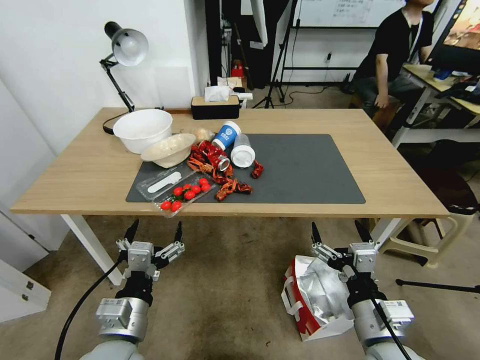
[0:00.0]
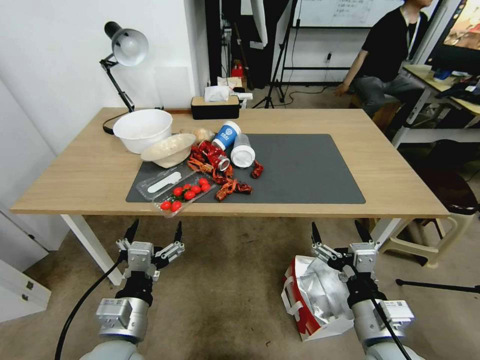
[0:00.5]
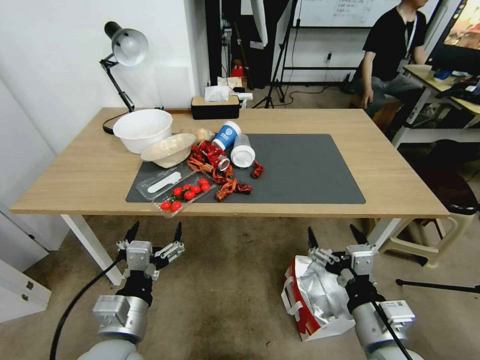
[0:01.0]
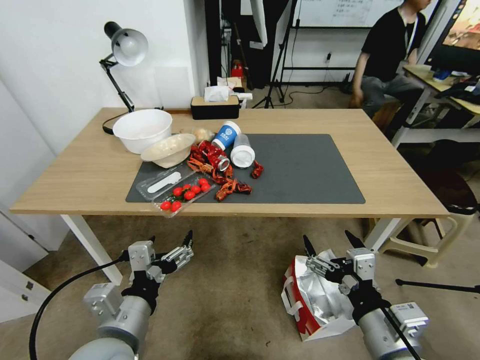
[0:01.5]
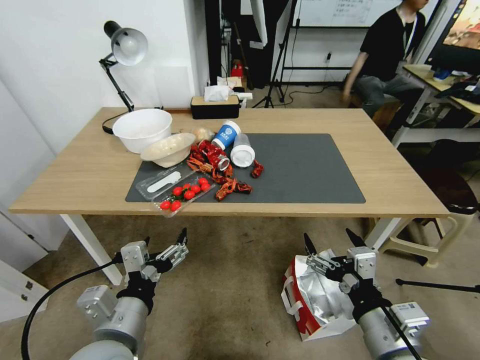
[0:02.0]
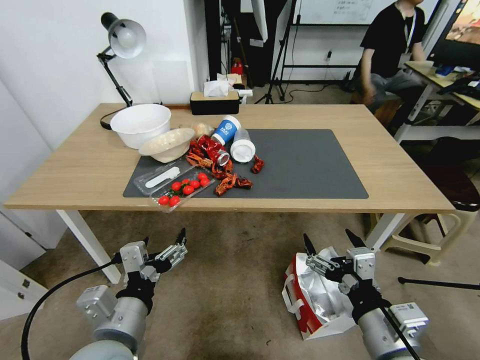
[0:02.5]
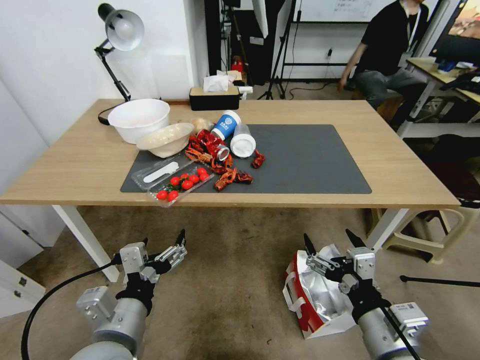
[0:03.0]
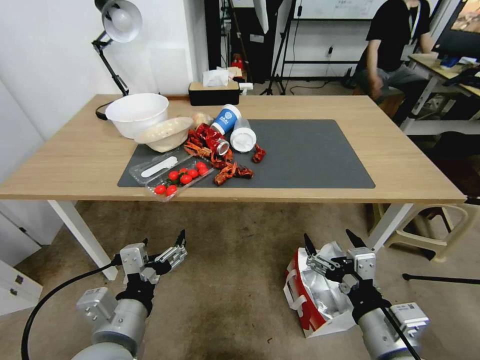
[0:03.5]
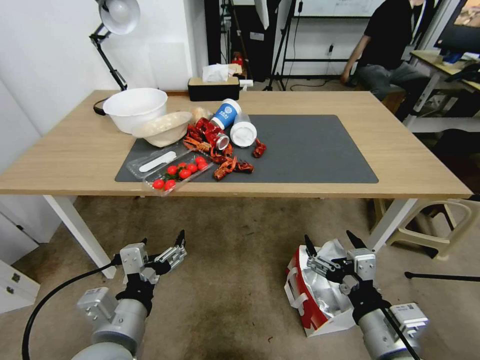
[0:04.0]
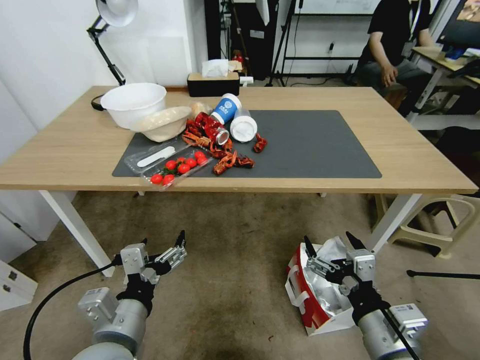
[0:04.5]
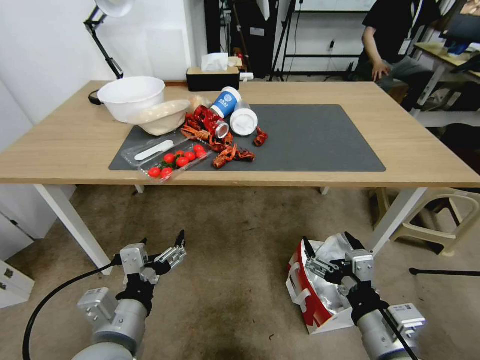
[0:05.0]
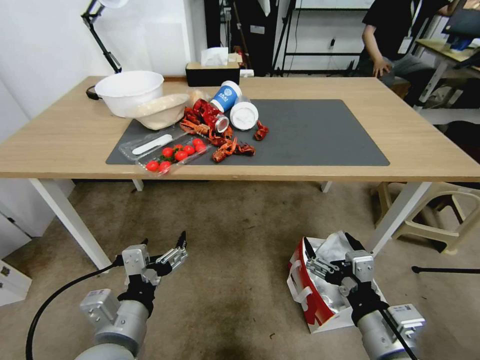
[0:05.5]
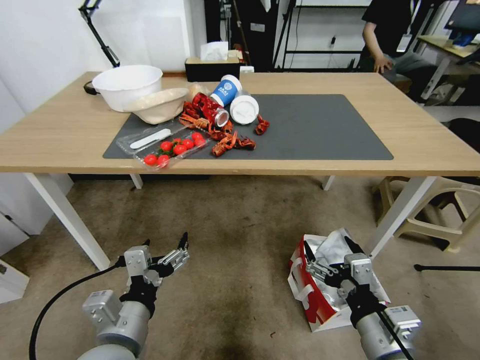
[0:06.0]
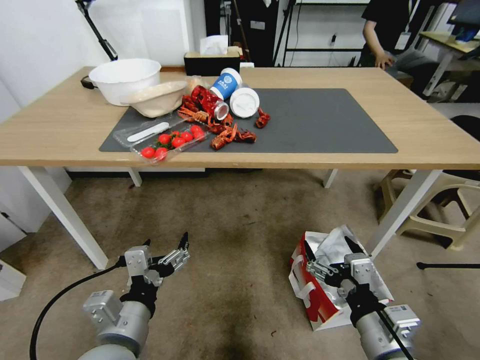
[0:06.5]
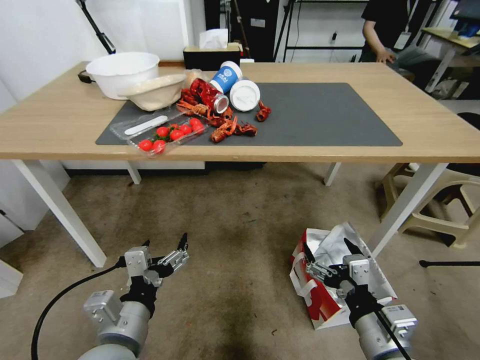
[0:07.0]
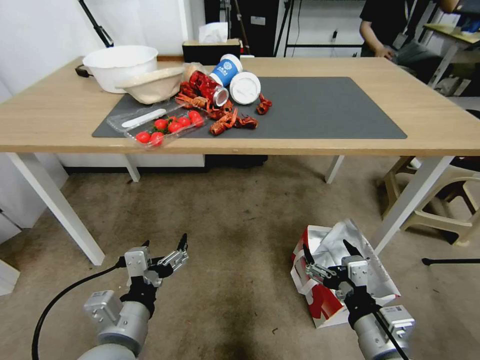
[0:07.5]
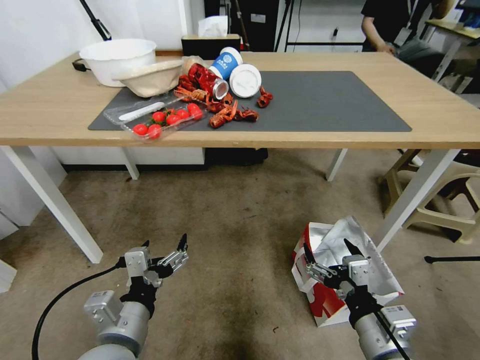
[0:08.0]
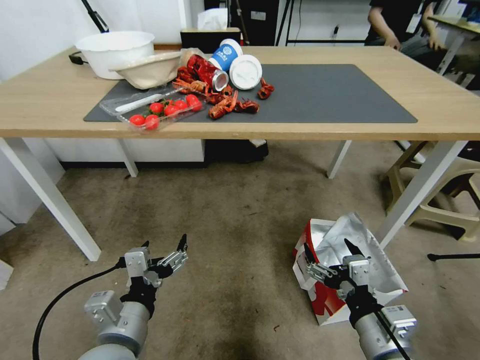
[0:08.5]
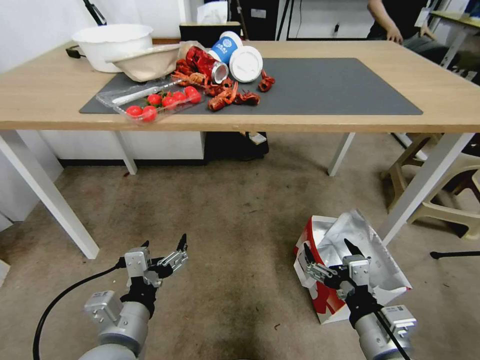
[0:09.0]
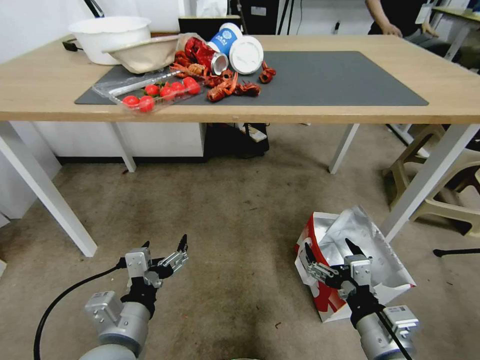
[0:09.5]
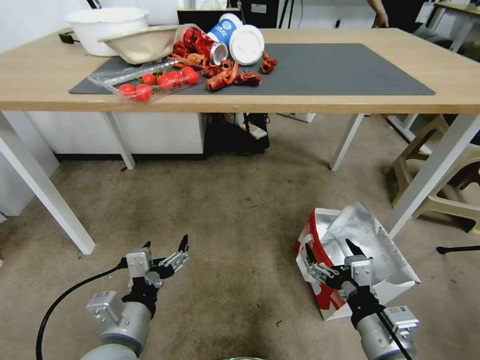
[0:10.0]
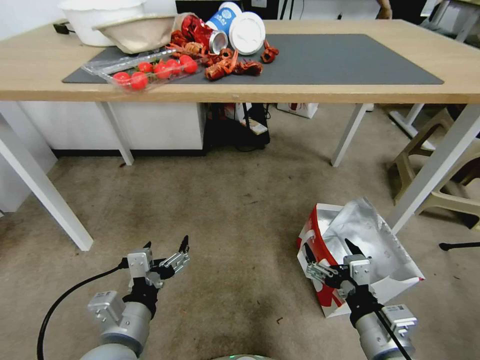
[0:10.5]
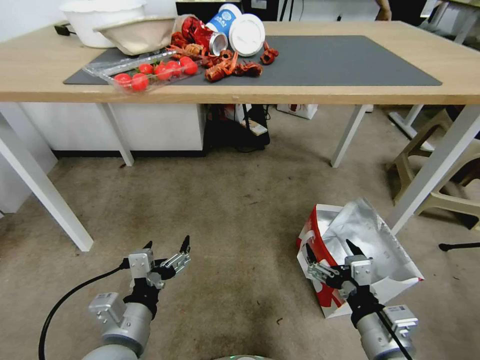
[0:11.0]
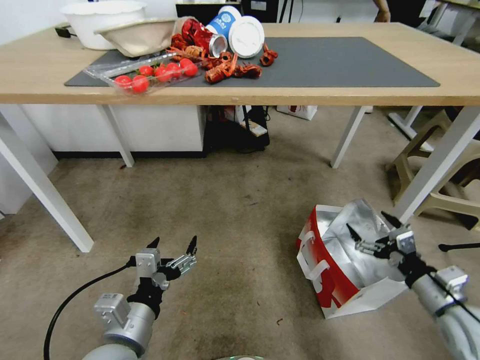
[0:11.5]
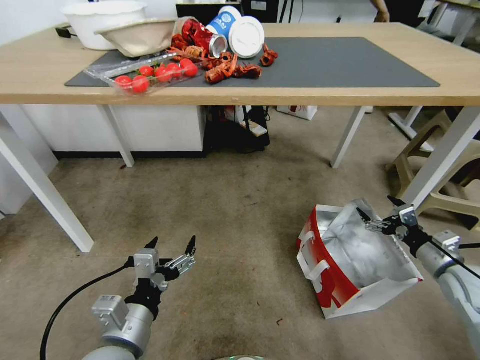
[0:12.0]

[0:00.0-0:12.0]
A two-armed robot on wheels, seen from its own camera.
Task of the whole recording: Pick up the food delivery bag from the floor and place it on the table.
0:10.0 to 0:12.0: The right gripper moves to the right and forward, about 30 cm.

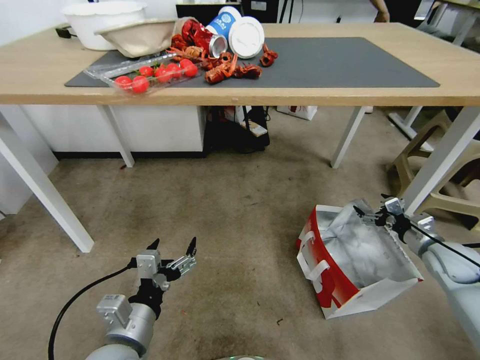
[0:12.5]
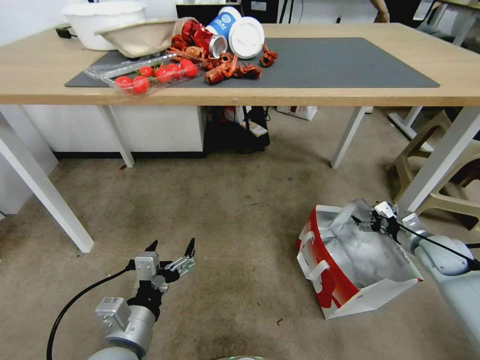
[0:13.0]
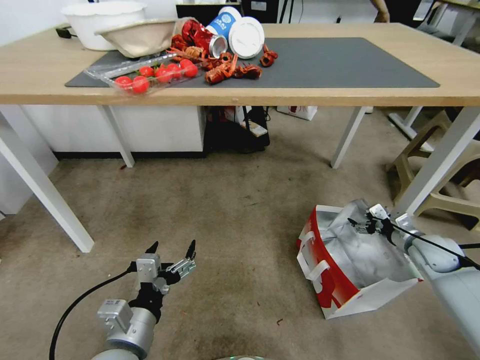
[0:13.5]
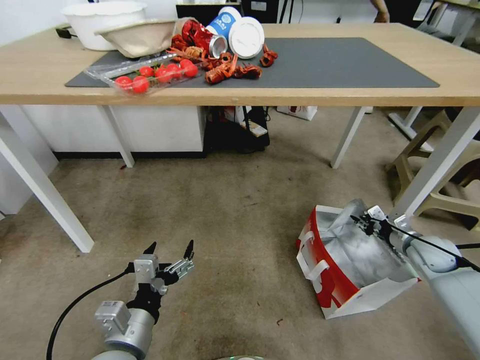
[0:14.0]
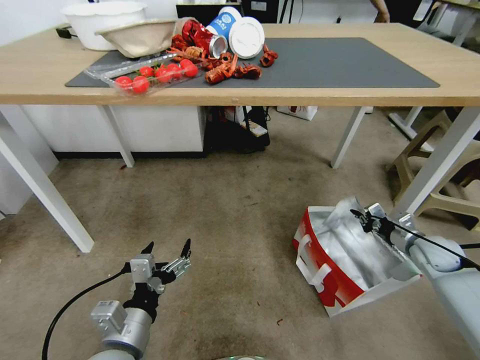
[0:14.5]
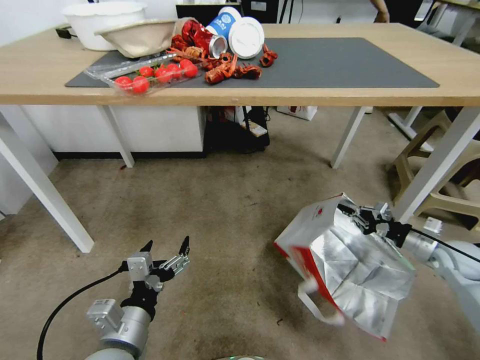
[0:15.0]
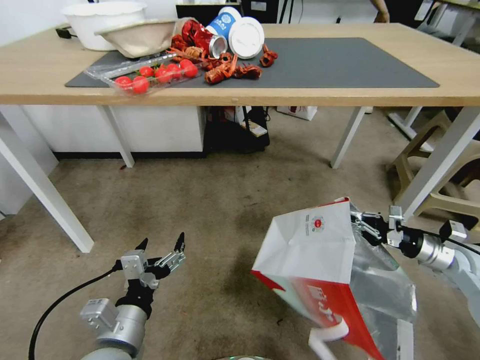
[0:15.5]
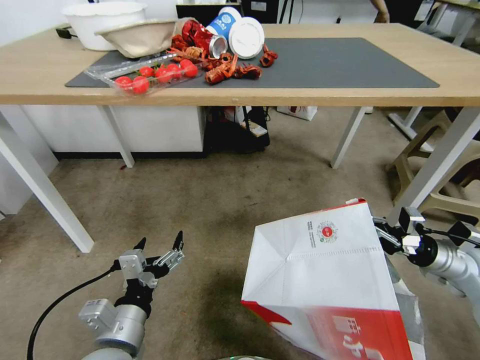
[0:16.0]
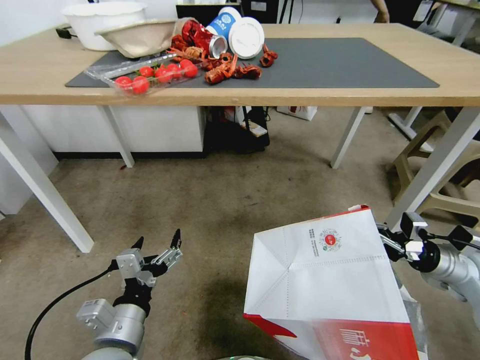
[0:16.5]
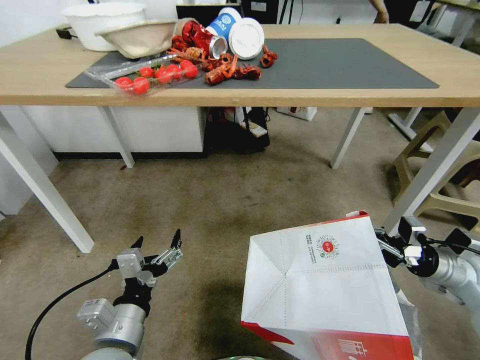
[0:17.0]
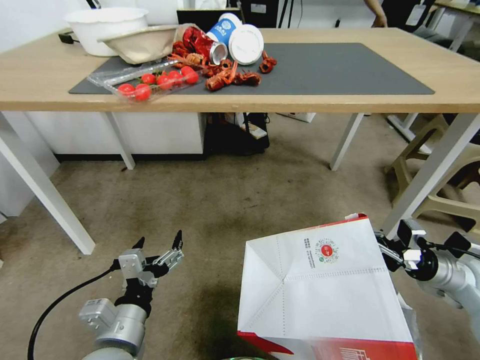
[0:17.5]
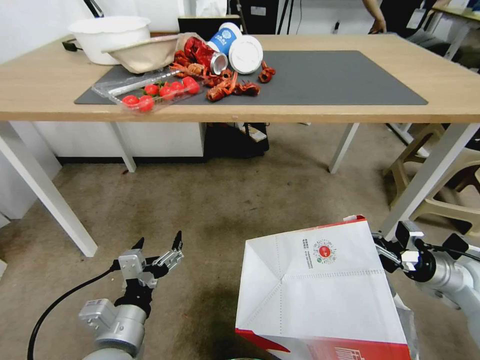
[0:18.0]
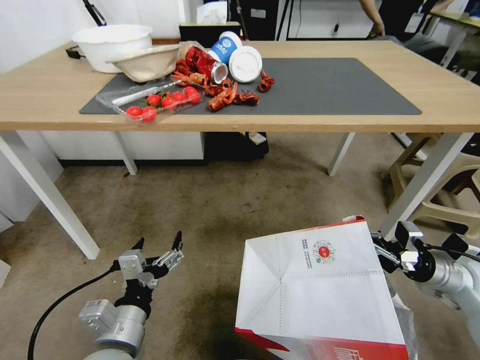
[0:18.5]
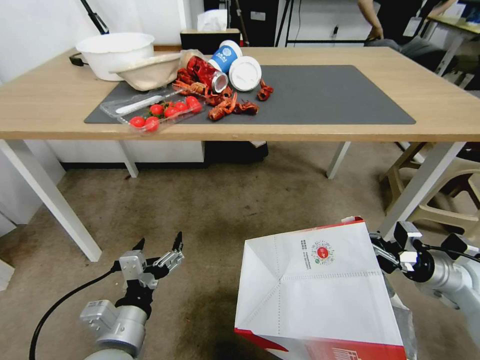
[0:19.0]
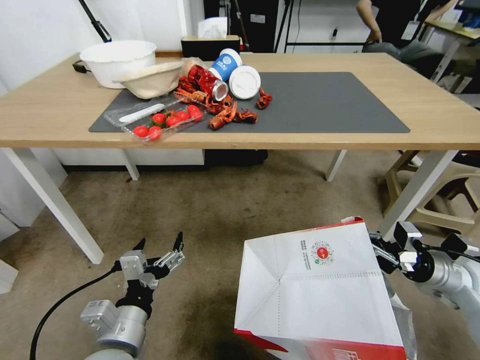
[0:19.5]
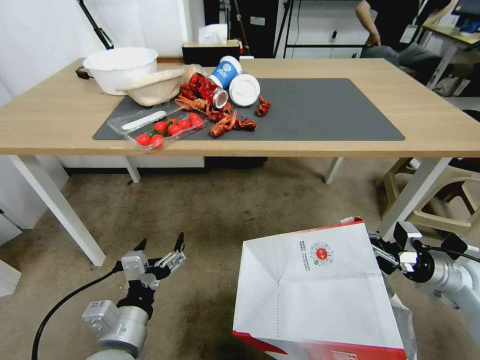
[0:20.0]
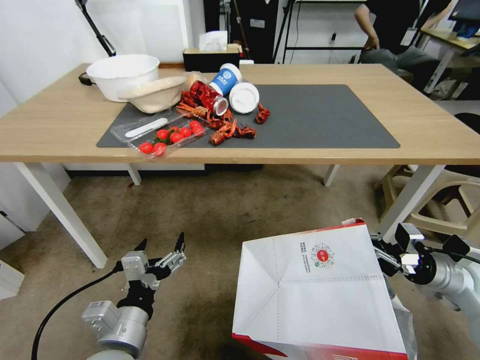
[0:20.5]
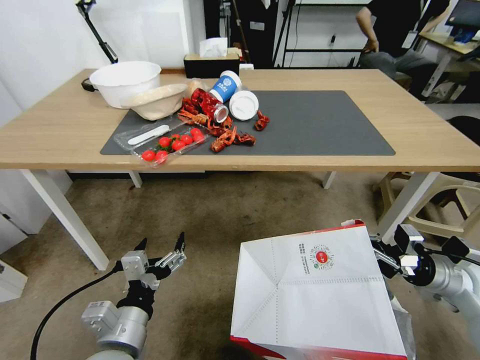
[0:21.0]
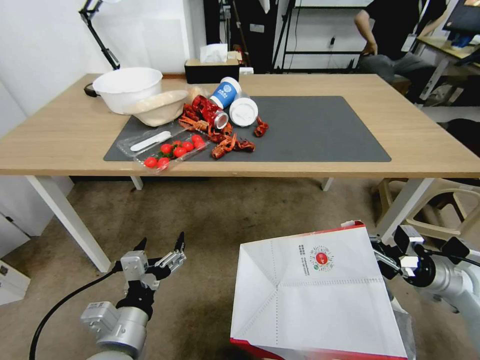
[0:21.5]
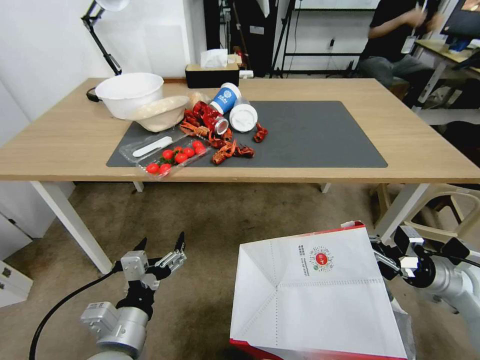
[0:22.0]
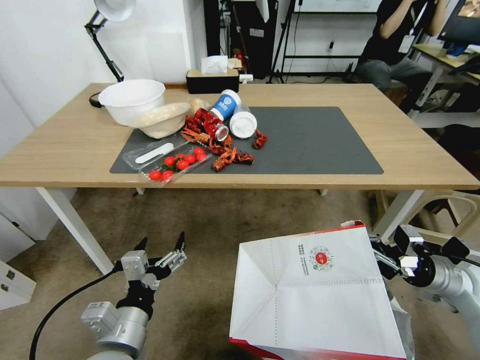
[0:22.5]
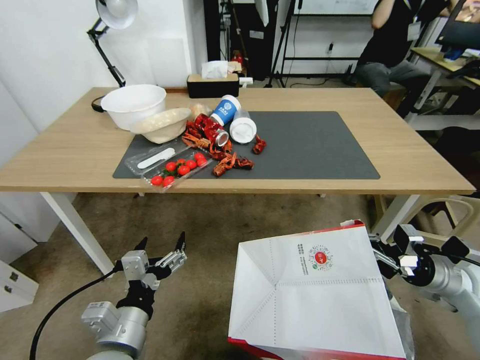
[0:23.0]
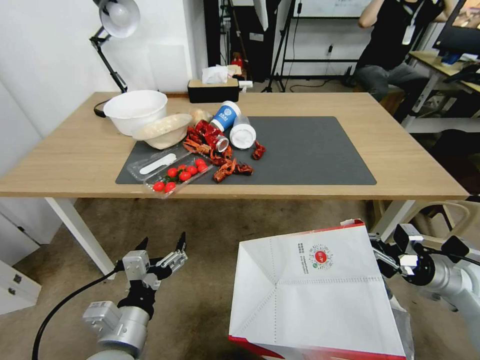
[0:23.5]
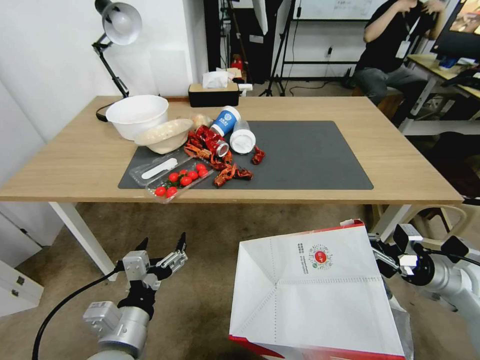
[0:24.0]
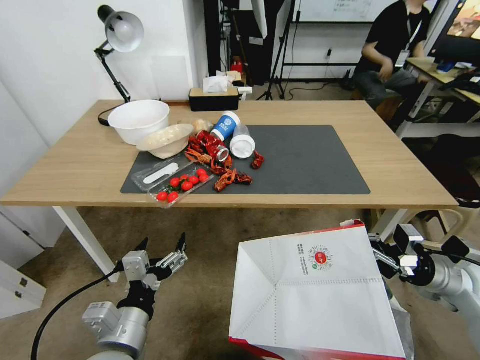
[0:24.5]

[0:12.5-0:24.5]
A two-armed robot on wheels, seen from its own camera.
Task of the whole recording: Pick up the food delivery bag from the floor and place it on the table.
0:12.5 to 0:14.5: The right gripper closes up.
0:14.5 to 0:16.5: The right gripper travels backward and upward by some 10 cm.

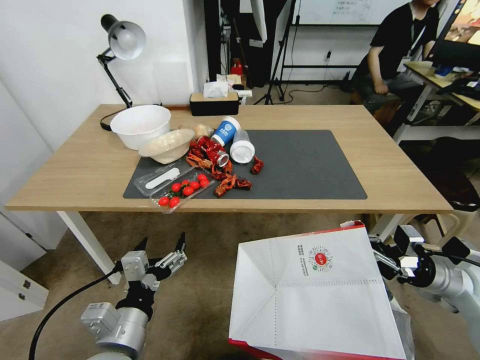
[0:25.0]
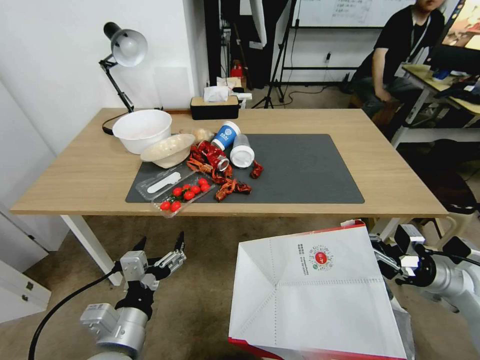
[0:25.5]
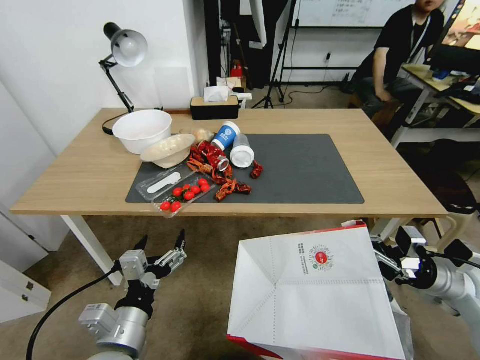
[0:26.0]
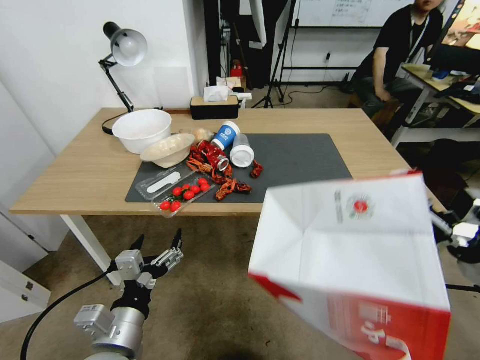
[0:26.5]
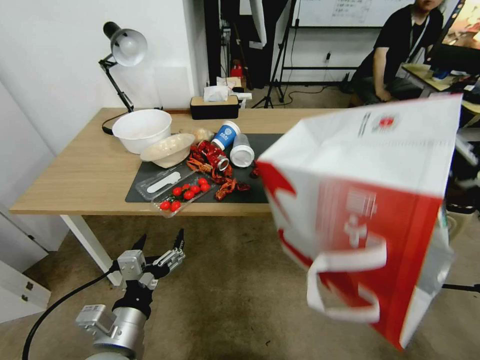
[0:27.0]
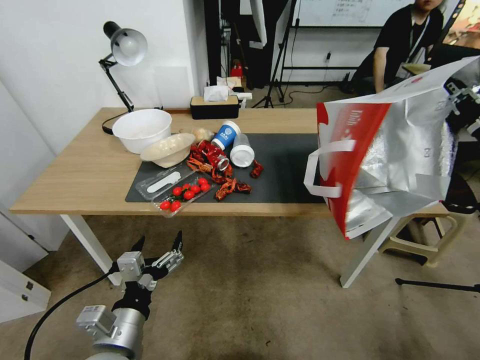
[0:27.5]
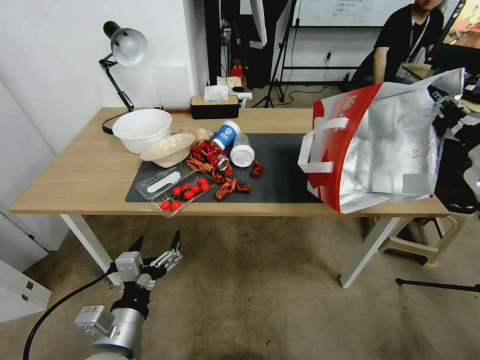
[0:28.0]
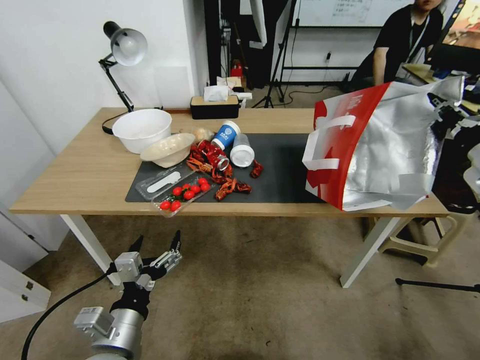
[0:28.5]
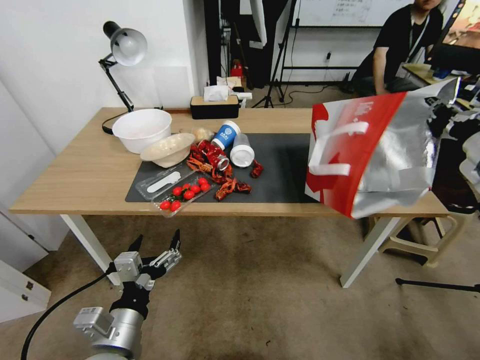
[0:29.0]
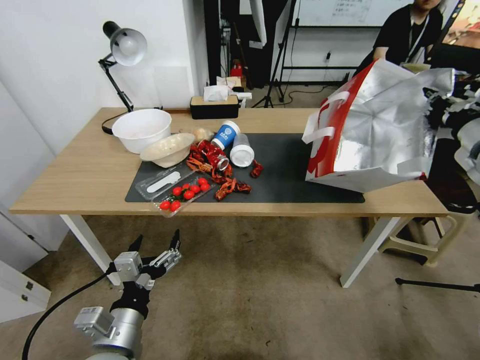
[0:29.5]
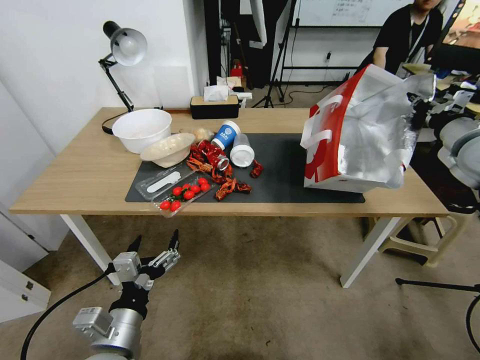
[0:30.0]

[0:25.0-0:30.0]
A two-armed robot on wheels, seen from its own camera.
Task of the whole recording: Pick up the food delivery bag from the floor and place it on the table.
0:25.0 to 0:27.5: The right gripper shifts about 20 cm upward.
0:27.5 to 0:30.0: The right gripper moves forward, some 10 cm.
